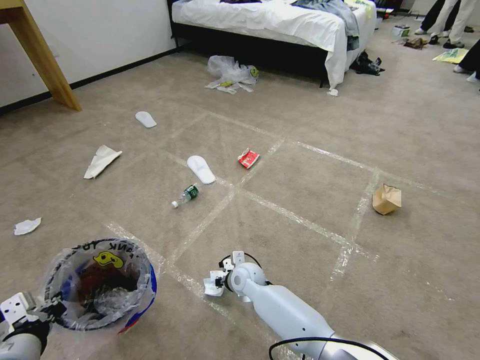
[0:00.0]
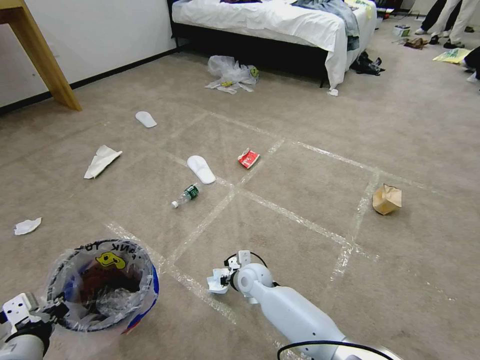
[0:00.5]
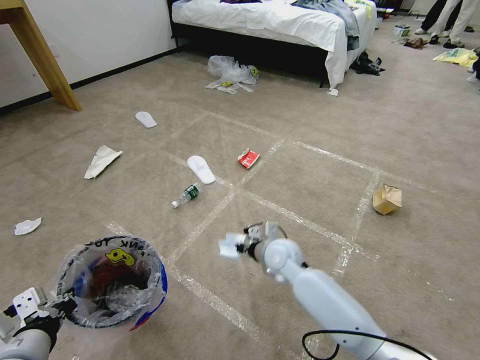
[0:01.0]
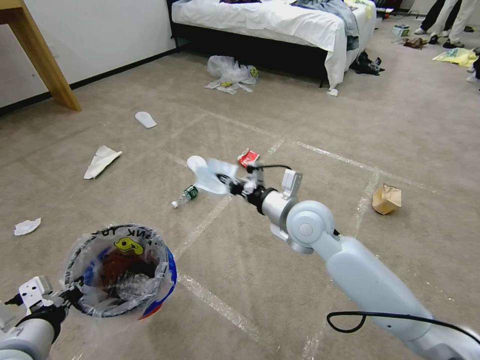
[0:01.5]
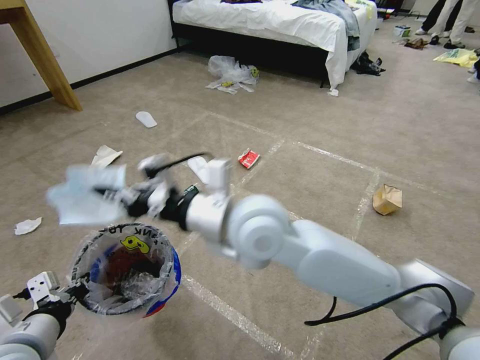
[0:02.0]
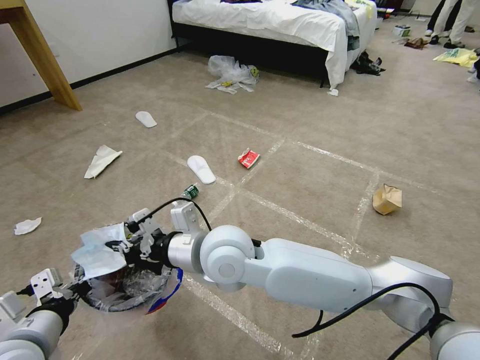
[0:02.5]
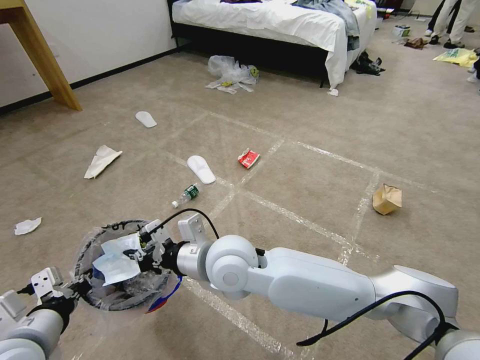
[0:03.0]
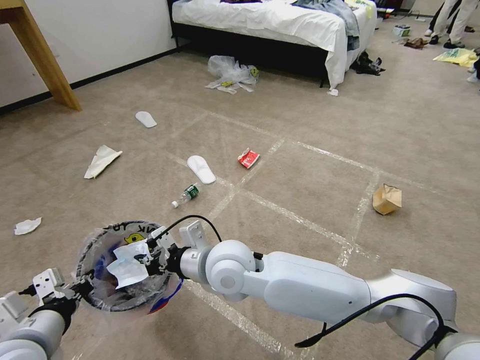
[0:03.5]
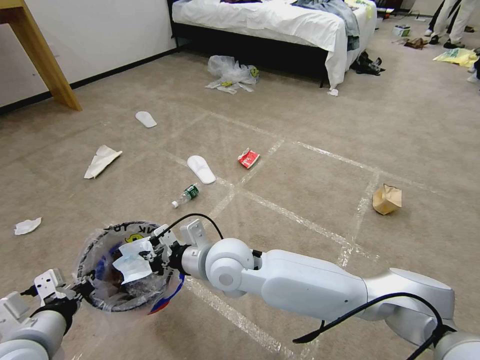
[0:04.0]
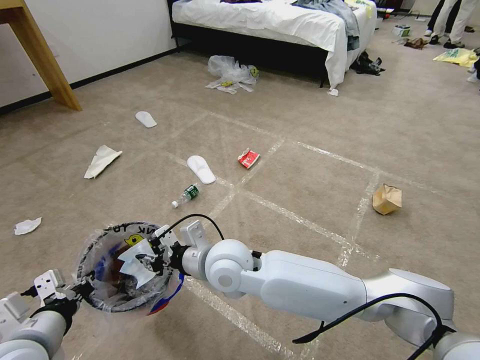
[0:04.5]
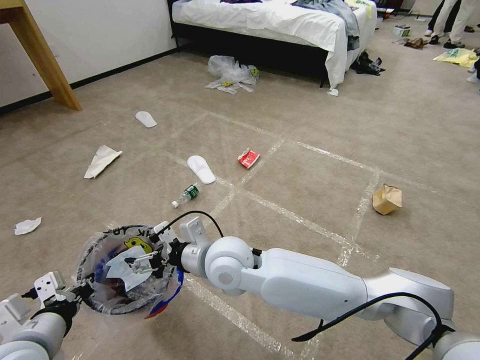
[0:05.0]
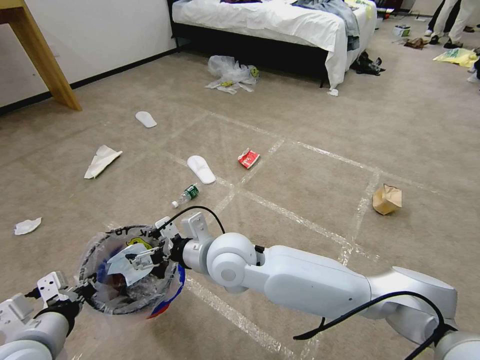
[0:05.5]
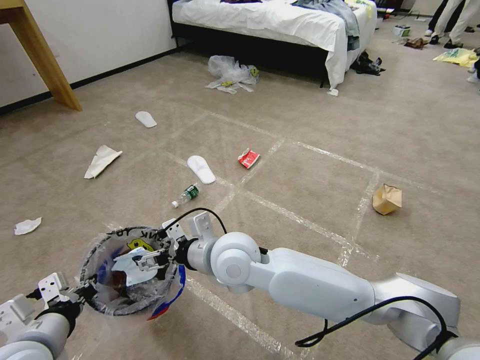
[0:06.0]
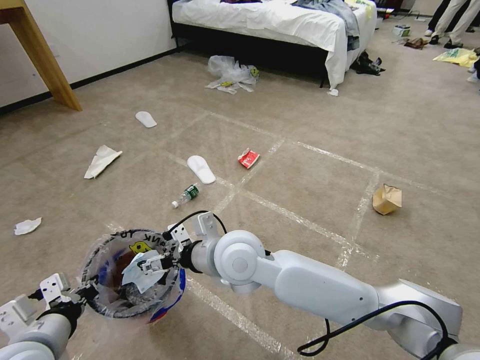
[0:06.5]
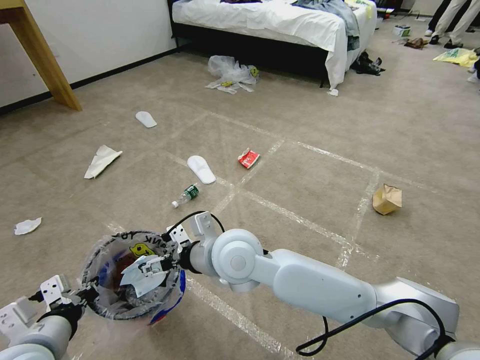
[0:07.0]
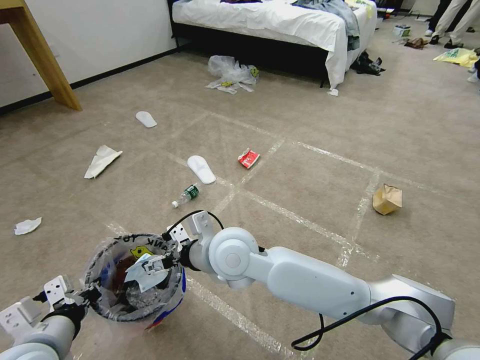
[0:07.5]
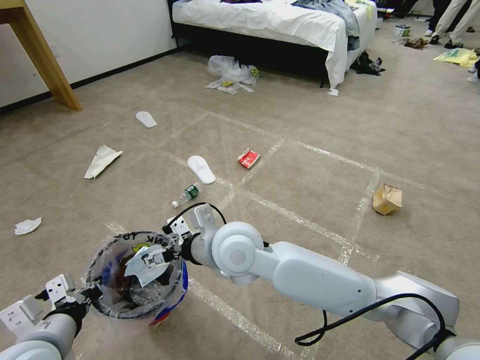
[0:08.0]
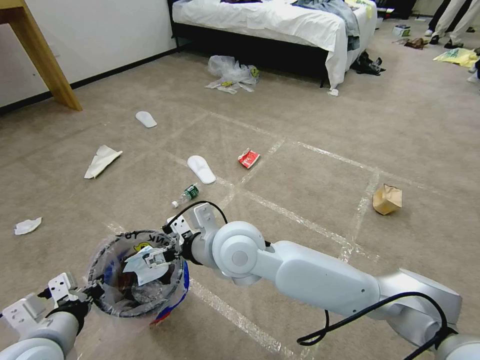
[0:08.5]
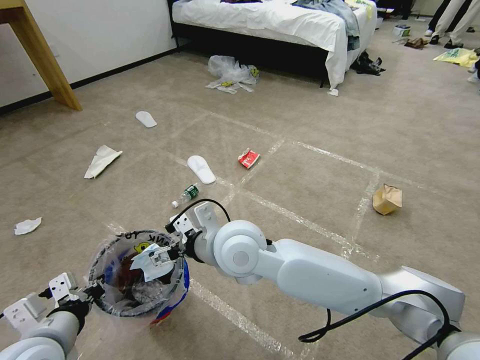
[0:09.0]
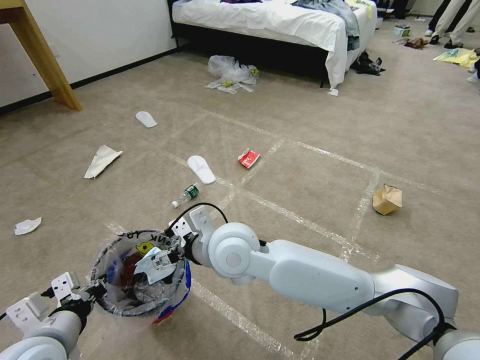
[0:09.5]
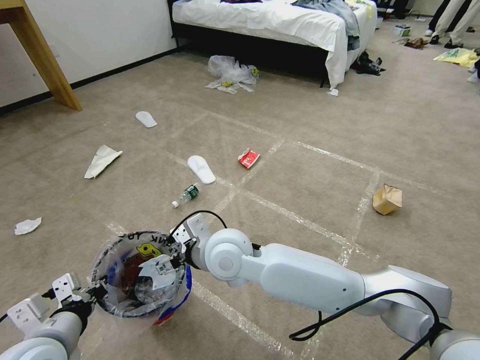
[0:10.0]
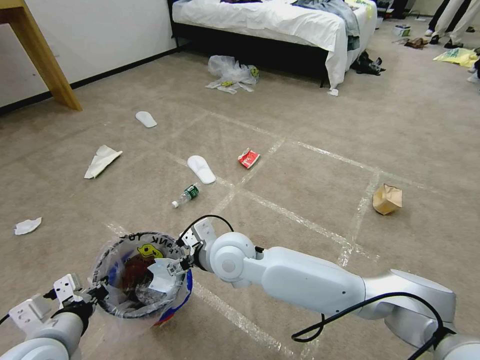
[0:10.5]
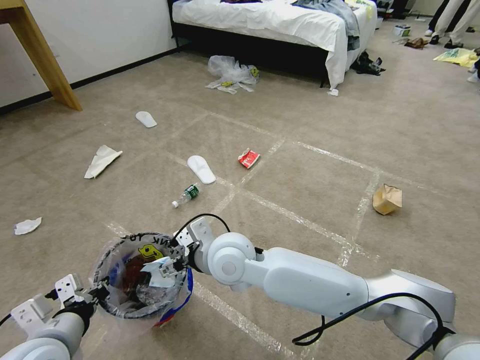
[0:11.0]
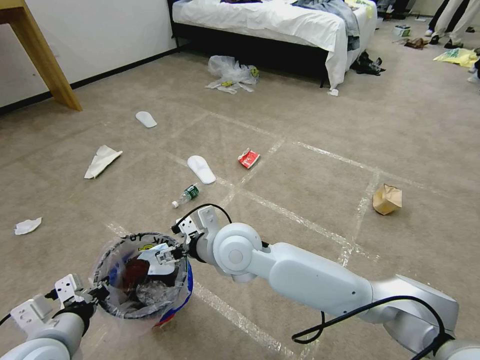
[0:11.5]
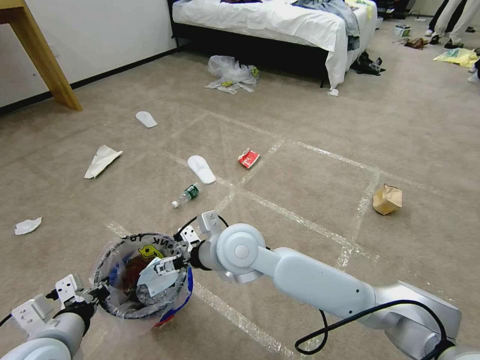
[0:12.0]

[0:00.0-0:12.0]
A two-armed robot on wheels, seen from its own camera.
Task of the whole recording: Pick up the trash bin and place the garbage on the floor into it.
0:00.0 to 0:02.0: The right gripper travels upward by roughly 35 cm.
0:02.0 to 0:04.0: The right gripper shifts some 15 cm downward.
0:04.0 to 0:06.0: The right gripper opens its fingers.
0:06.0 to 0:10.0: The grippers move only a little.
0:10.0 to 0:12.0: The grippers stay close to where they were, moving slightly.

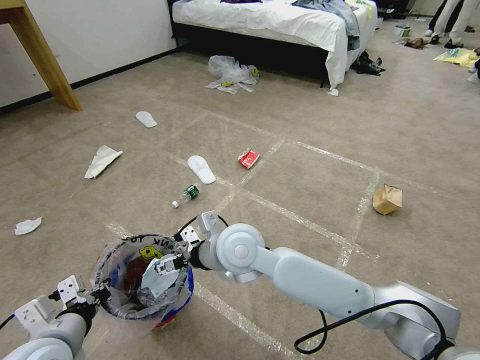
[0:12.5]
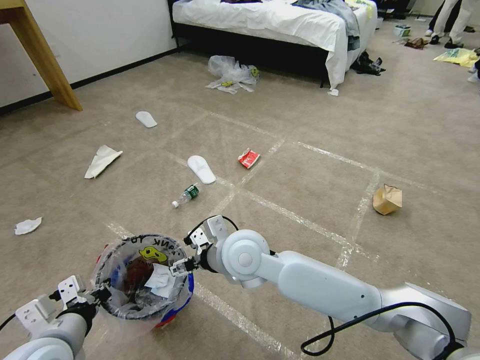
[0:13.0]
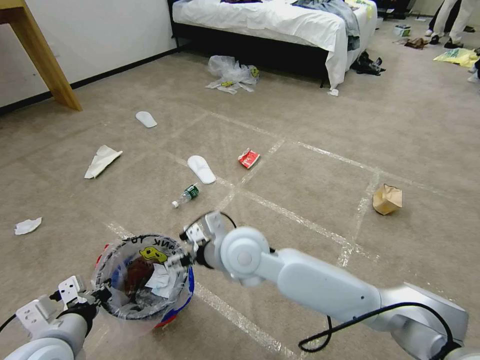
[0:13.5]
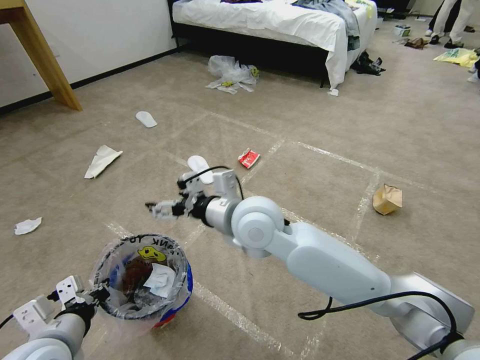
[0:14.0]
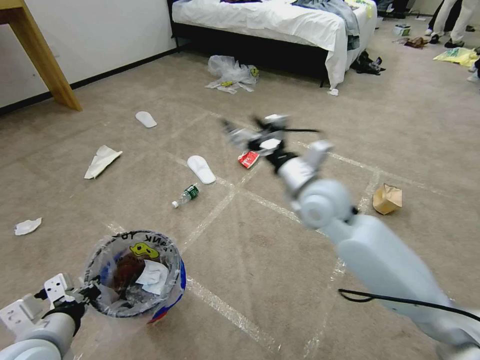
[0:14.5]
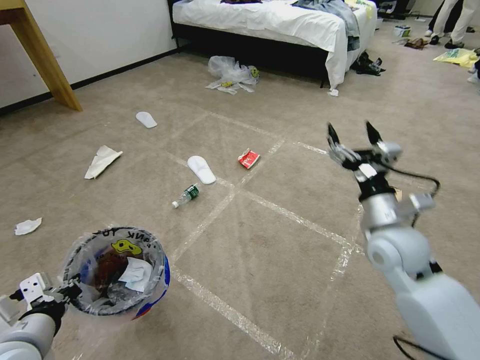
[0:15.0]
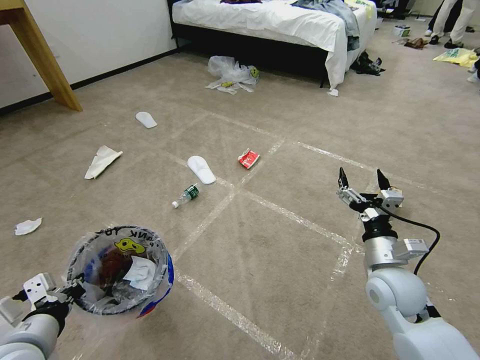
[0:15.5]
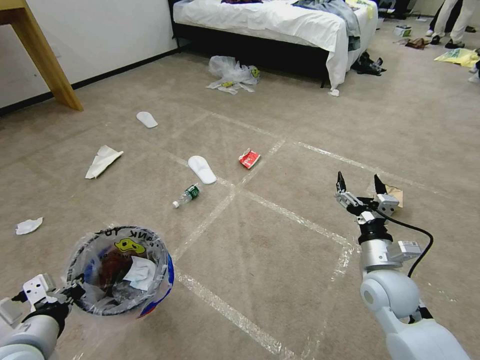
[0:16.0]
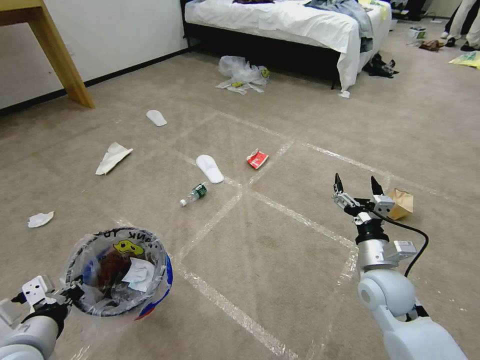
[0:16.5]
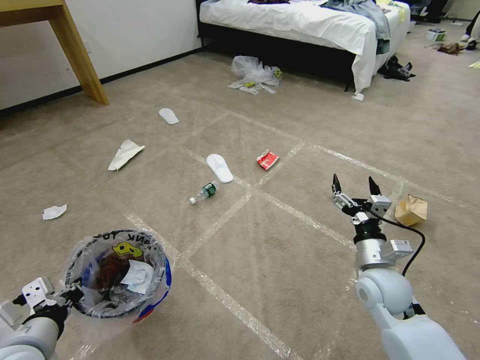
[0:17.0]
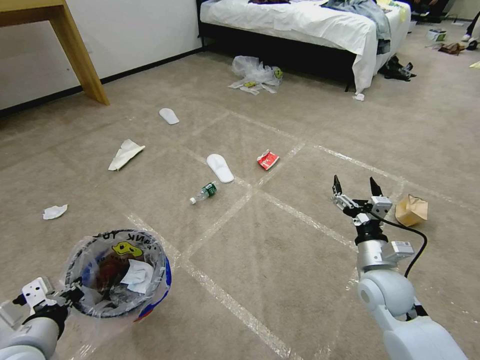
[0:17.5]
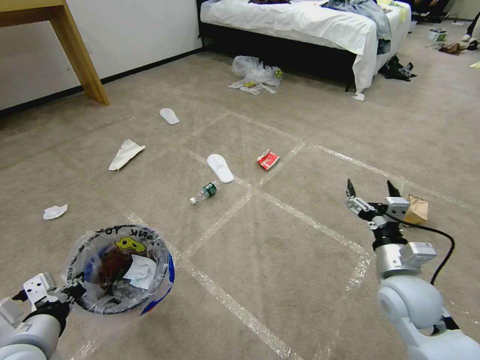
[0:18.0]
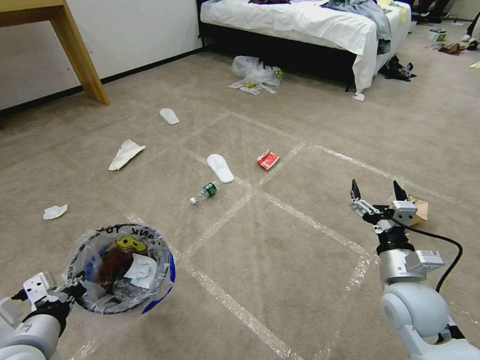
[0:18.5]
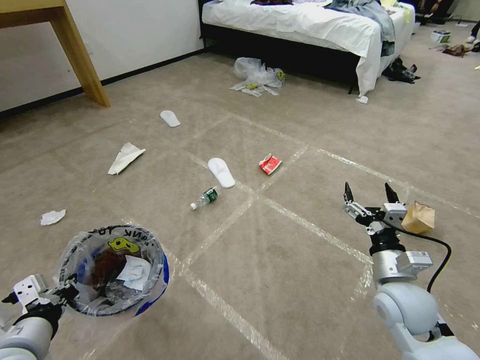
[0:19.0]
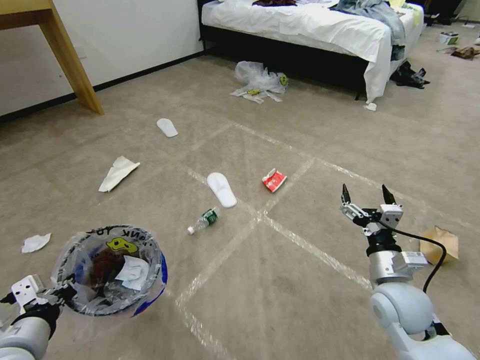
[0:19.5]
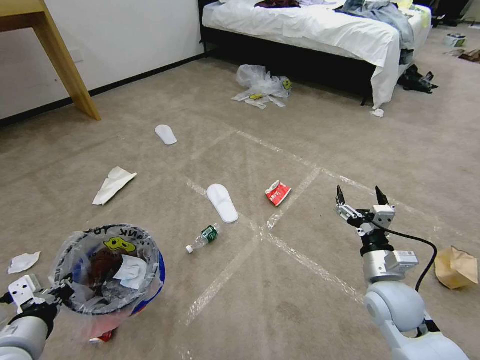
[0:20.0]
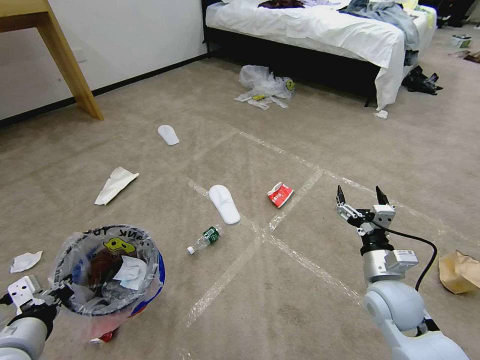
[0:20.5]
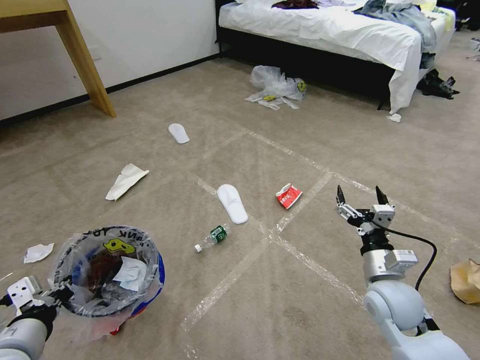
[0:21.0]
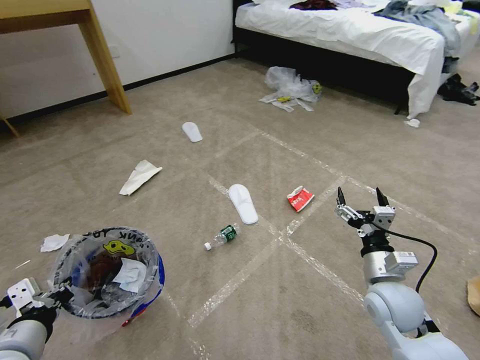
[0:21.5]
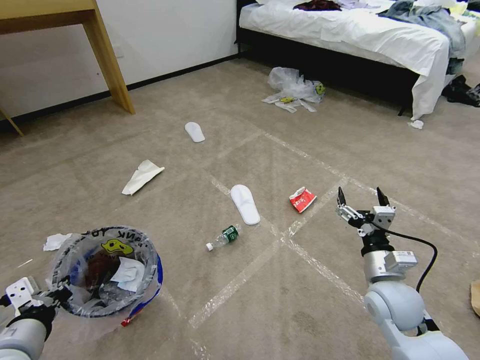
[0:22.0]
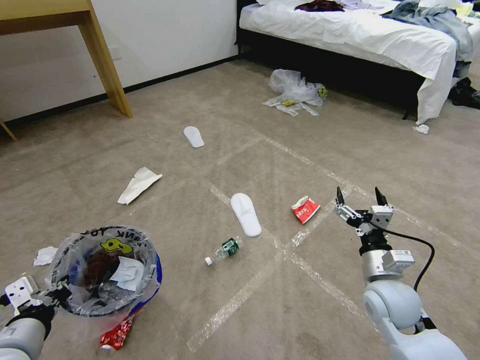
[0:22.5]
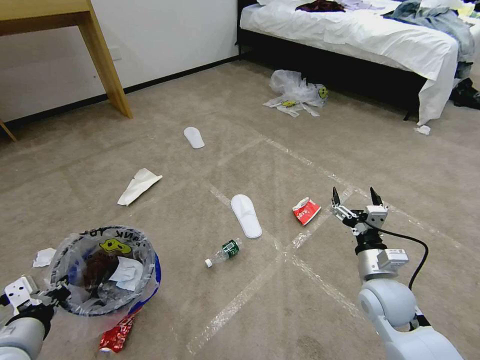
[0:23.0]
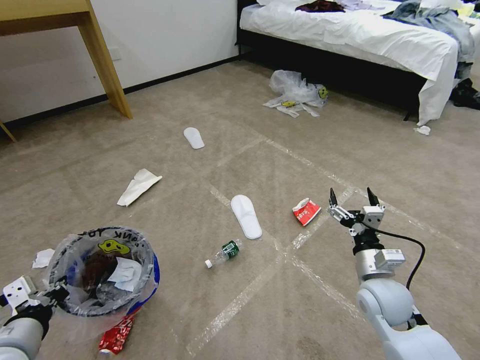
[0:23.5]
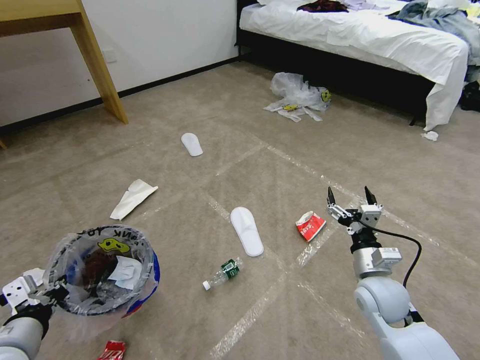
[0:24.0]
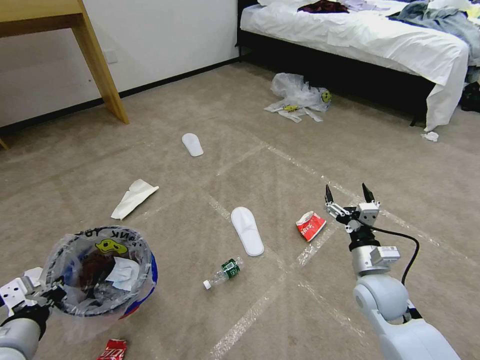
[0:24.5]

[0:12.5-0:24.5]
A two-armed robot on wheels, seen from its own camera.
Task of the whole recording: Pick up the trash bin and place the garbage on the floor into it.
0:12.5 to 0:14.5: The right gripper shifts some 15 cm to the right.
0:14.5 to 0:16.5: The right gripper travels downward, to the right and backward by approximately 25 cm.
0:16.5 to 0:18.5: The right gripper moves approximately 5 cm.
0:22.5 to 0:24.5: There are only small adjustments of the grippers.

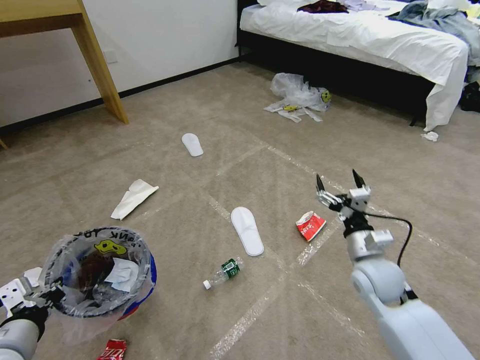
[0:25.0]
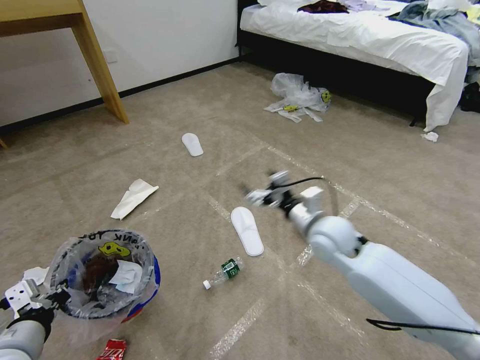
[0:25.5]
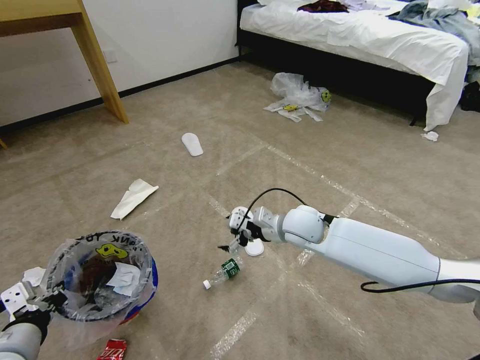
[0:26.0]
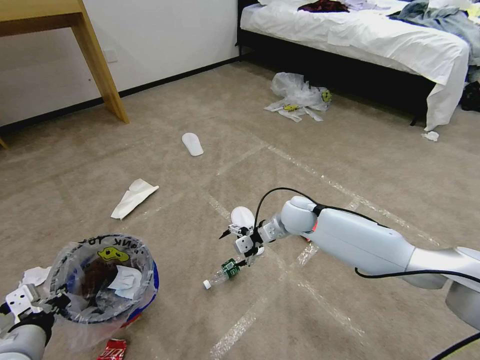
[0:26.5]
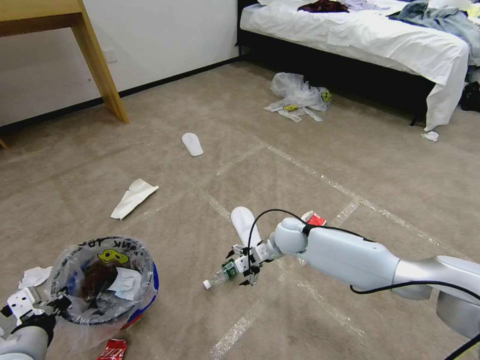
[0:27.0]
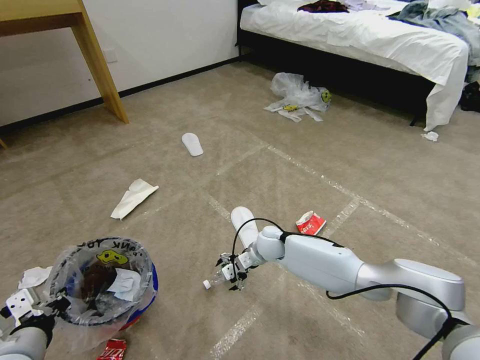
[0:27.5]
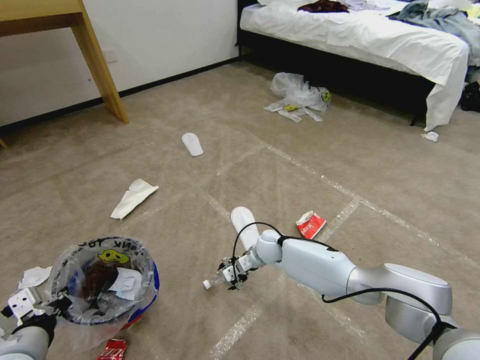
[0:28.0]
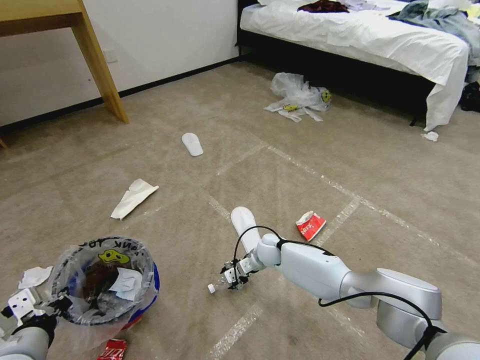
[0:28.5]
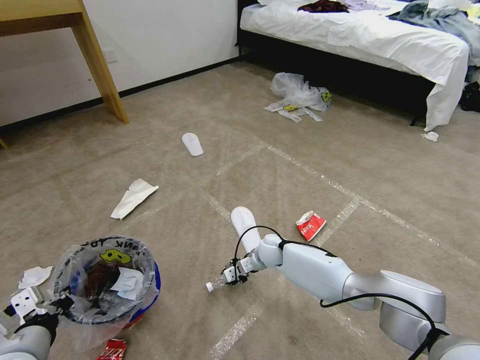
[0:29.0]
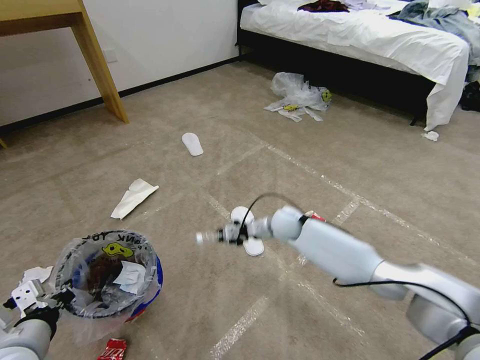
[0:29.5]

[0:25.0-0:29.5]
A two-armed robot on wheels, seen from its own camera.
Task of the whole recording: Pick up the trash bin and place the garbage on the floor into it.
0:25.0 to 0:27.0: The right gripper goes some 20 cm to the left and forward.
0:27.0 to 0:29.5: The right gripper travels downward and back again, roughly 10 cm each way, and closes its fingers.
